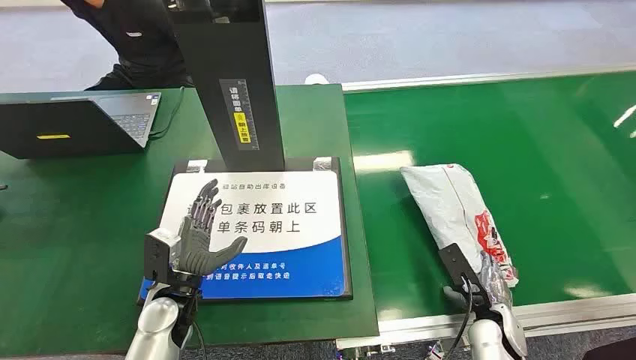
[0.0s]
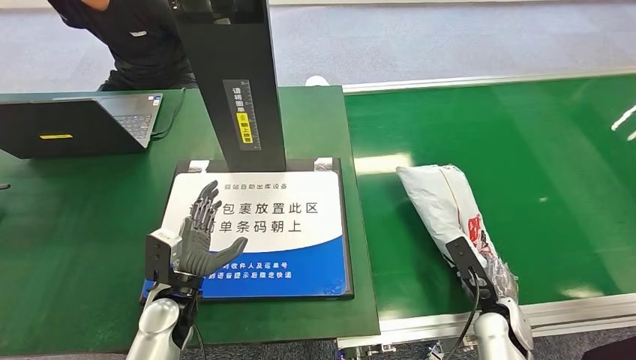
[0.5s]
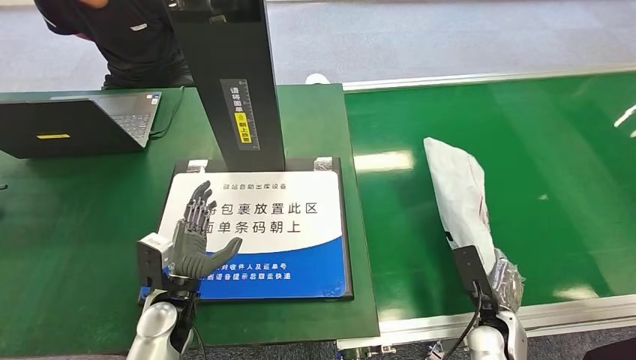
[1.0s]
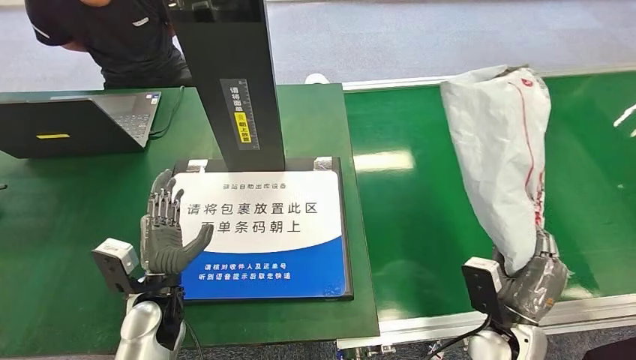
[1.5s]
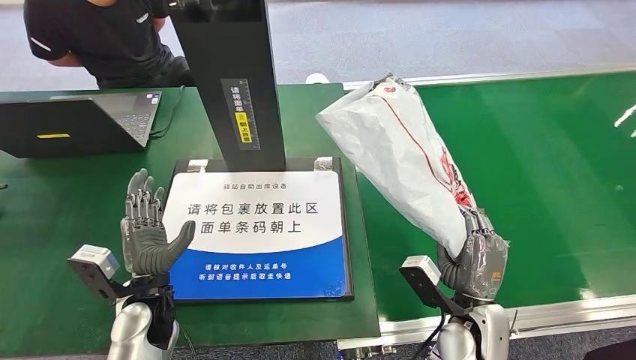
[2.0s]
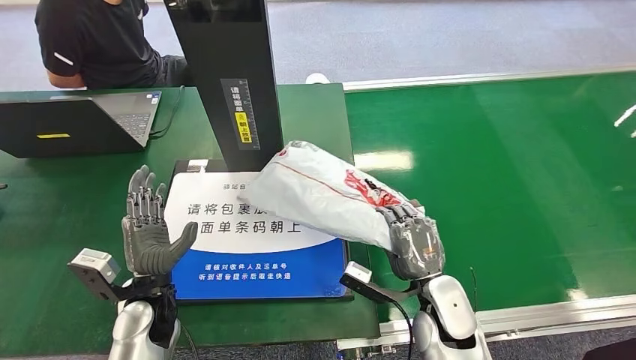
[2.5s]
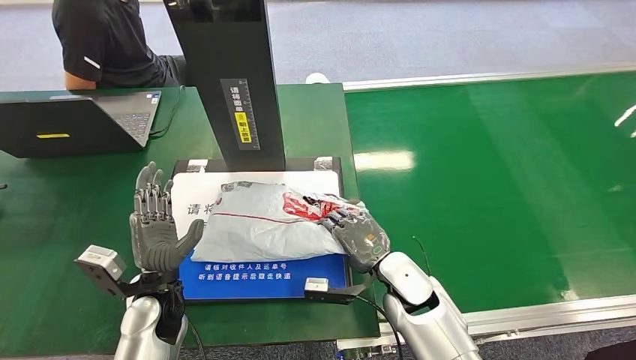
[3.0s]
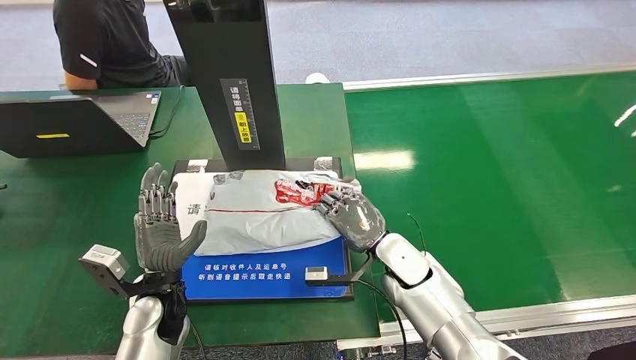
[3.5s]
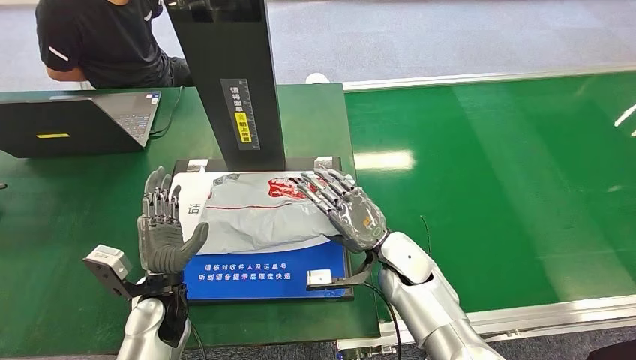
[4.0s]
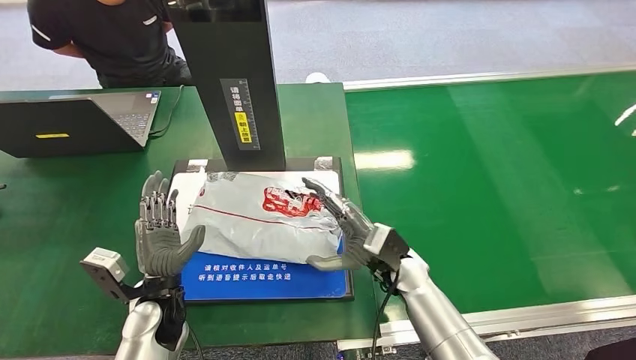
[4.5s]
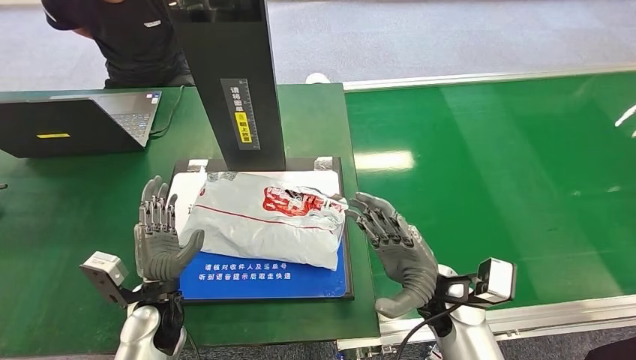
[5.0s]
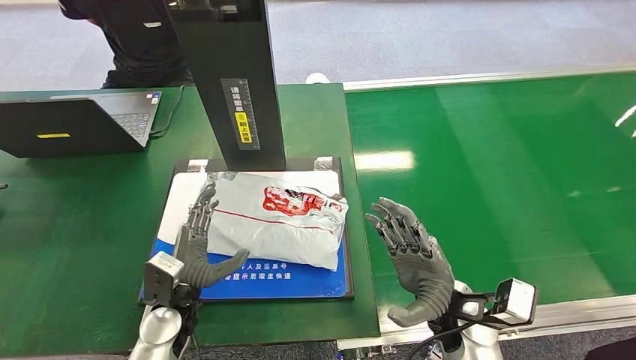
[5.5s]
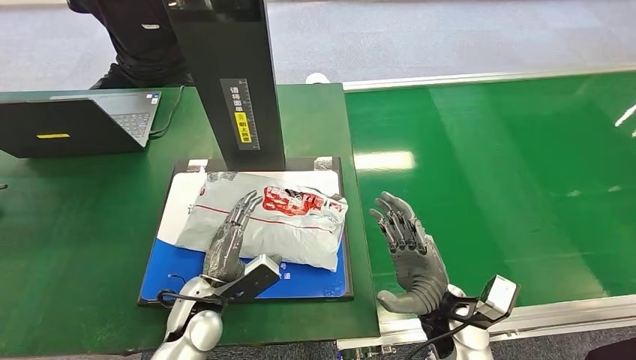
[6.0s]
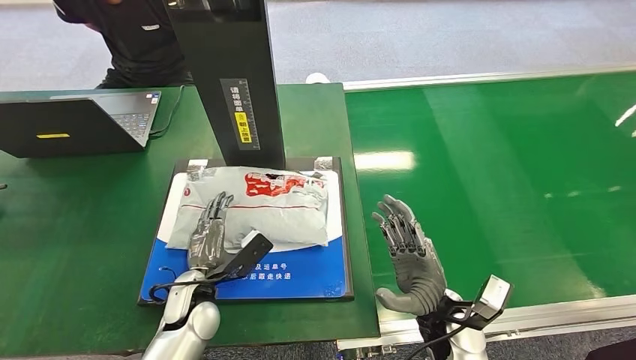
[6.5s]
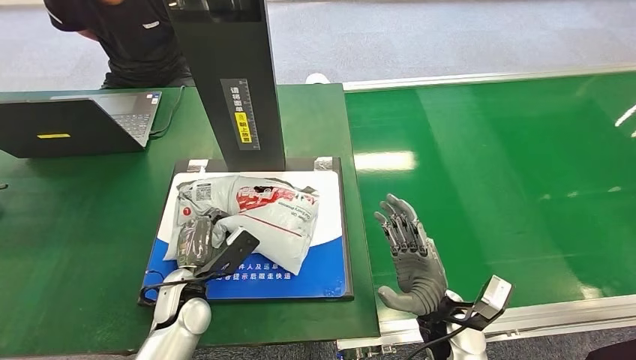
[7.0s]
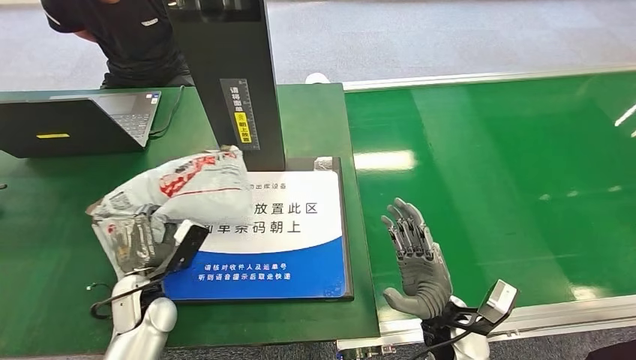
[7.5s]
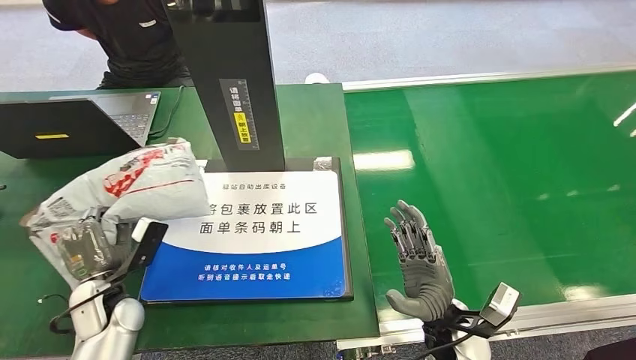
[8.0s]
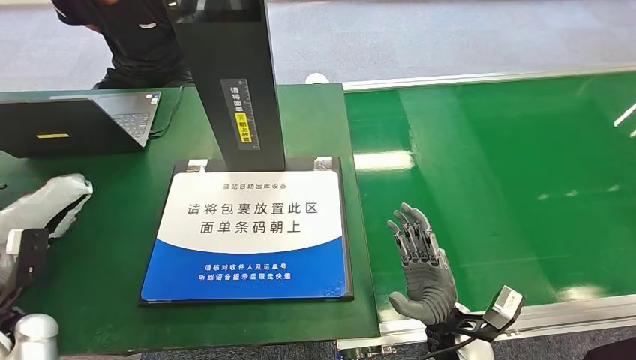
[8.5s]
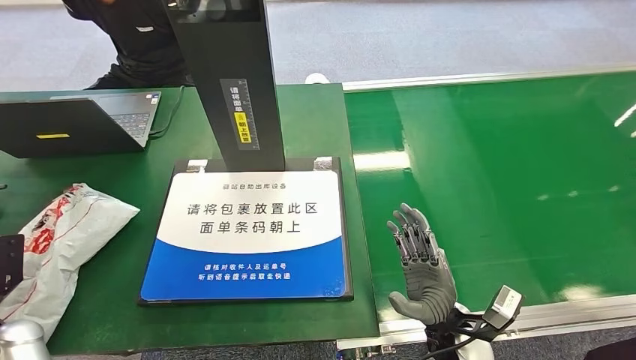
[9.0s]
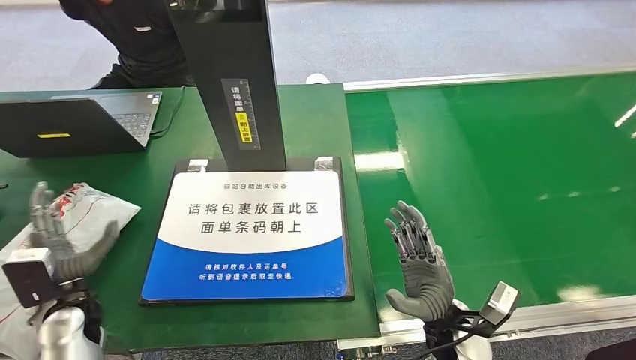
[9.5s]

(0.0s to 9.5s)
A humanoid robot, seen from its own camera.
Step, 0.0s - 1.5s: Pick up the package from the conveyor belt.
Step, 2.0s - 5.0s: Place the package onto the inbound machine.
Step, 5.5s - 8.0s: Pick up the package from the inbound machine.
Step, 8.5s - 9.5s: Place the package into the parcel locker.
5.5s - 7.5s: The left hand is displaced to the left by some 5 cm.
7.5s - 9.5s: The left hand is displaced to the left by about 10 cm.
